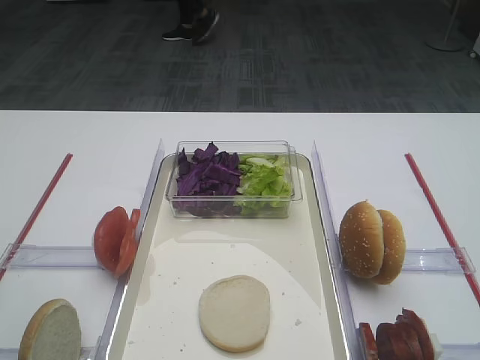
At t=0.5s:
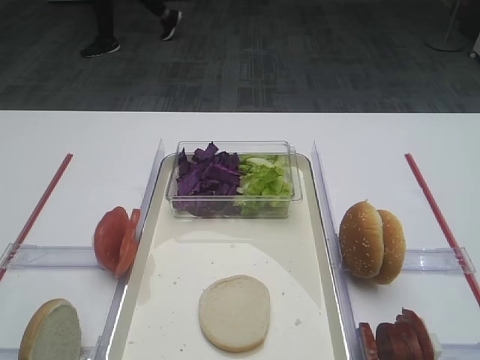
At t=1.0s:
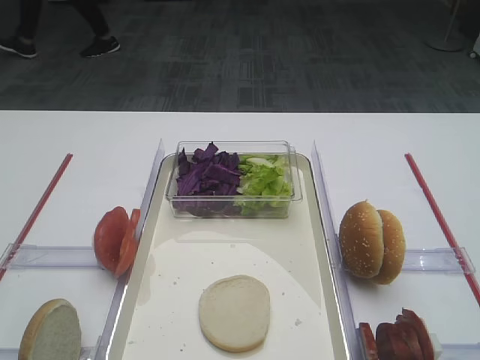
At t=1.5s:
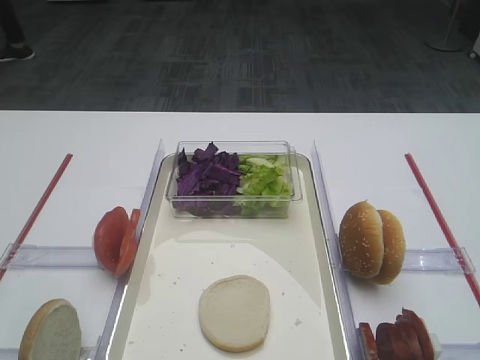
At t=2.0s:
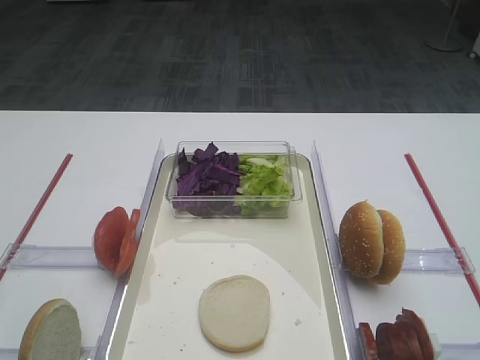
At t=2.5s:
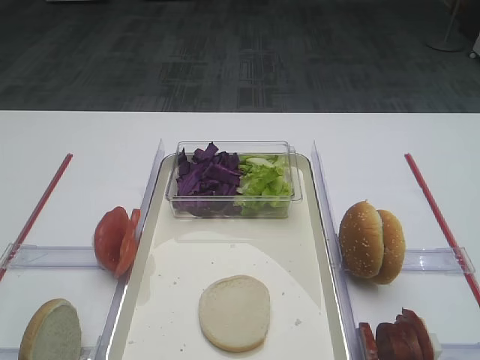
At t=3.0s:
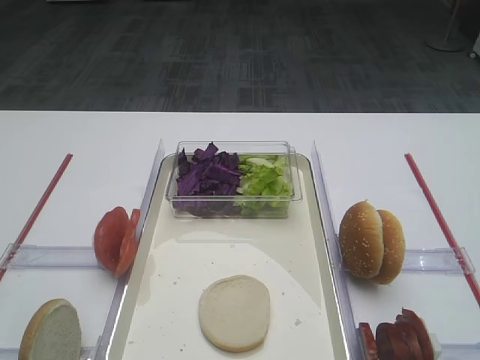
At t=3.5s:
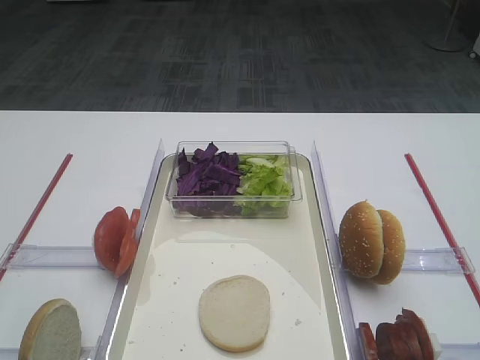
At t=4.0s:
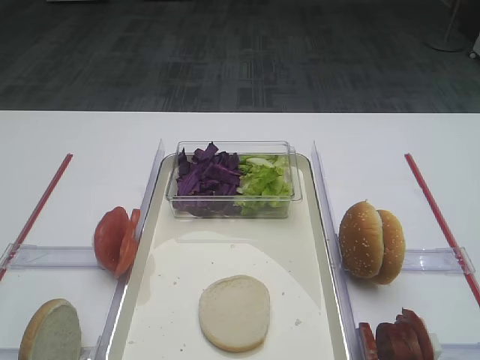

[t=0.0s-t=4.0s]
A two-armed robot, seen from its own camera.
t=2.0s to t=4.0s: Both grippers stay about where they are.

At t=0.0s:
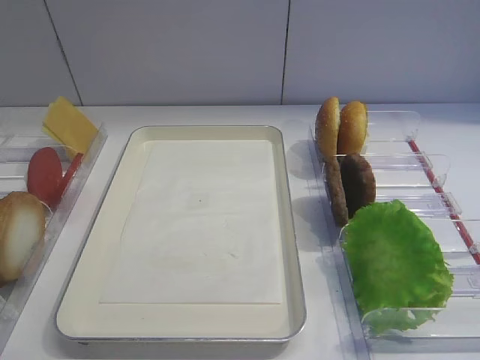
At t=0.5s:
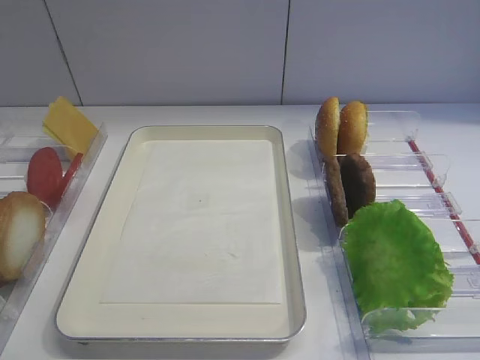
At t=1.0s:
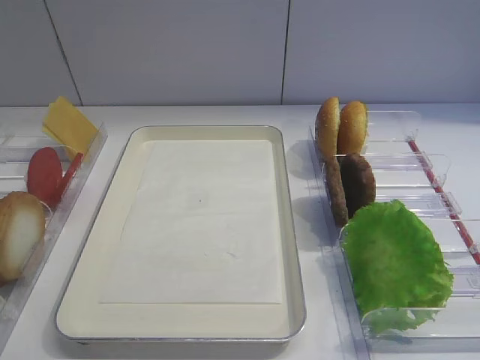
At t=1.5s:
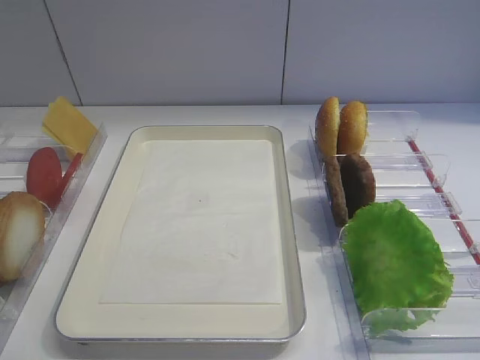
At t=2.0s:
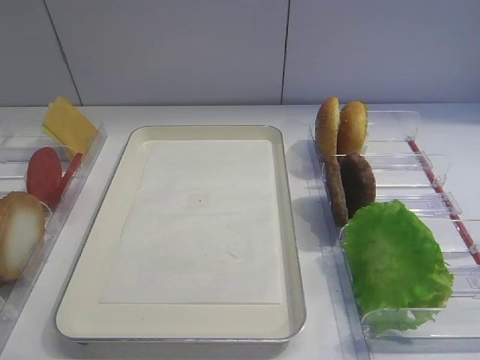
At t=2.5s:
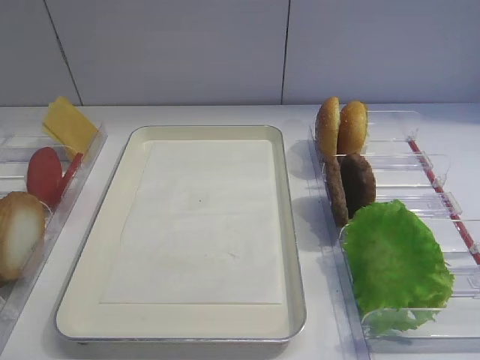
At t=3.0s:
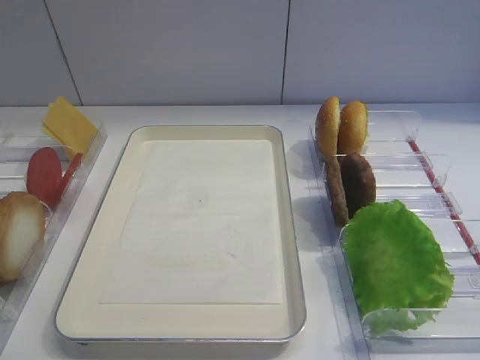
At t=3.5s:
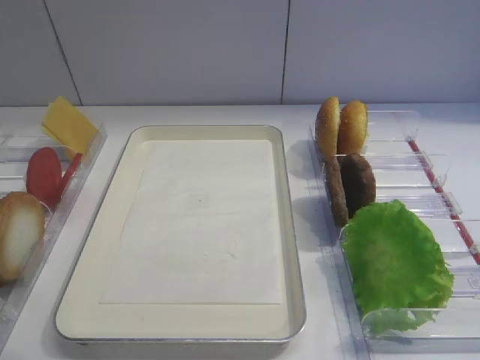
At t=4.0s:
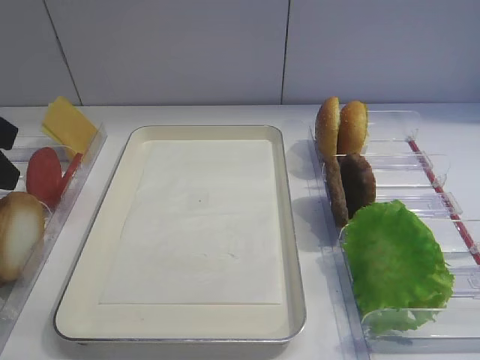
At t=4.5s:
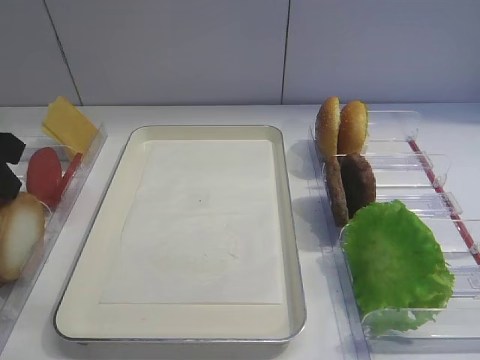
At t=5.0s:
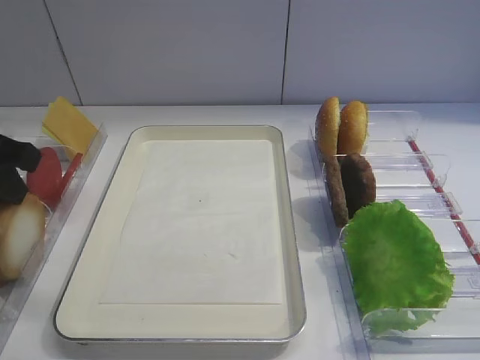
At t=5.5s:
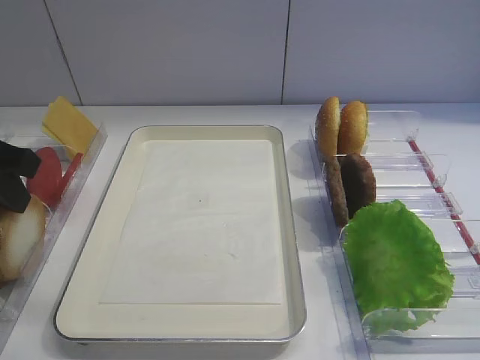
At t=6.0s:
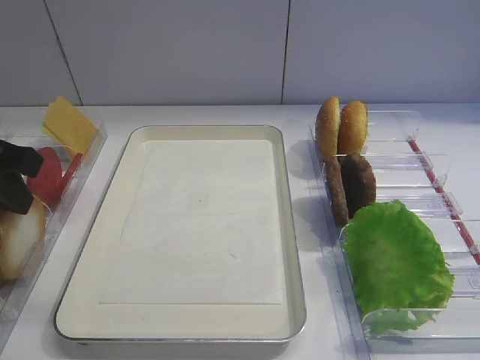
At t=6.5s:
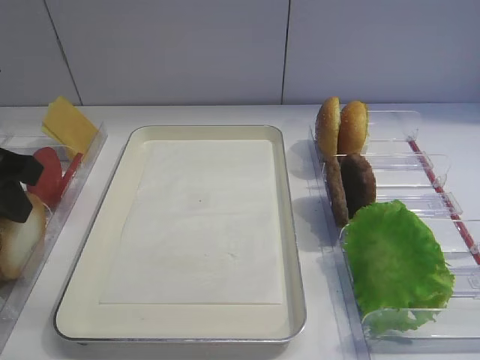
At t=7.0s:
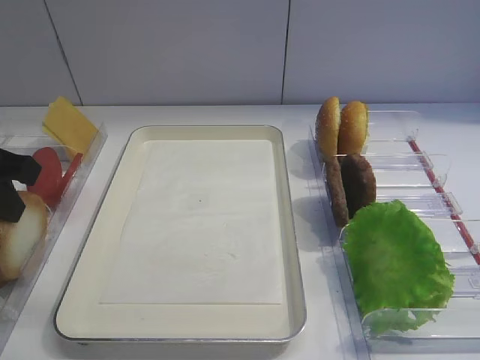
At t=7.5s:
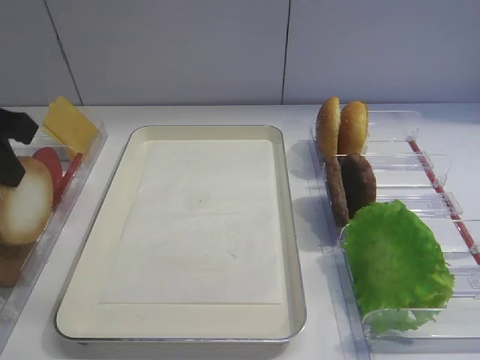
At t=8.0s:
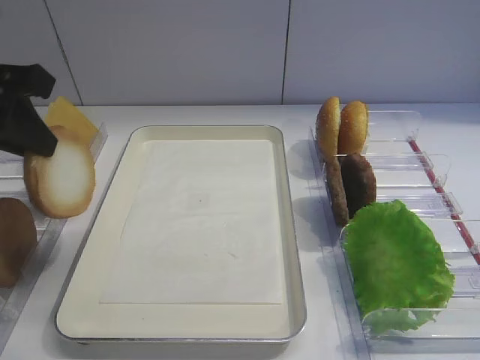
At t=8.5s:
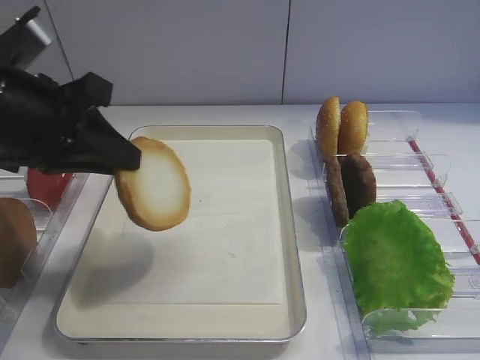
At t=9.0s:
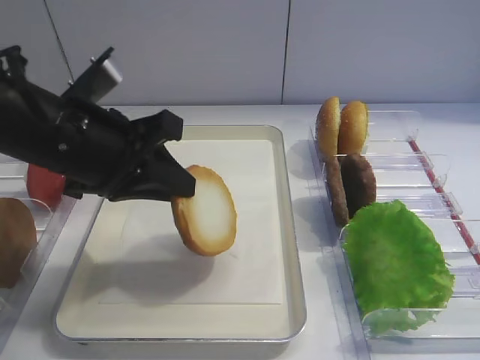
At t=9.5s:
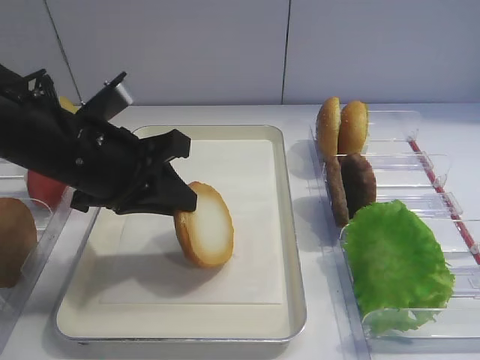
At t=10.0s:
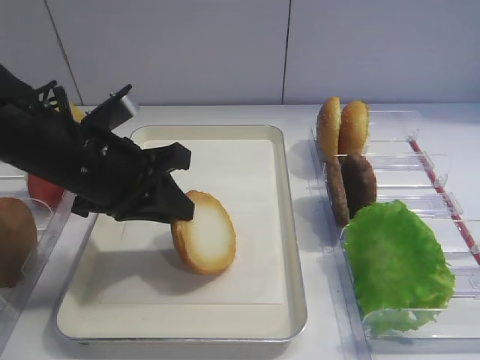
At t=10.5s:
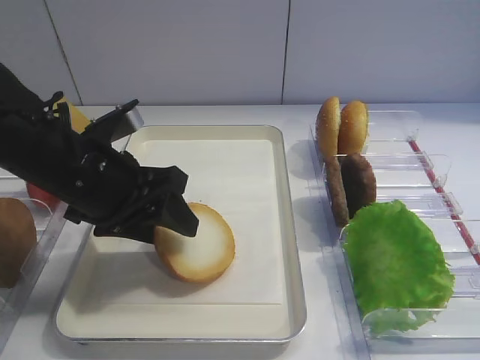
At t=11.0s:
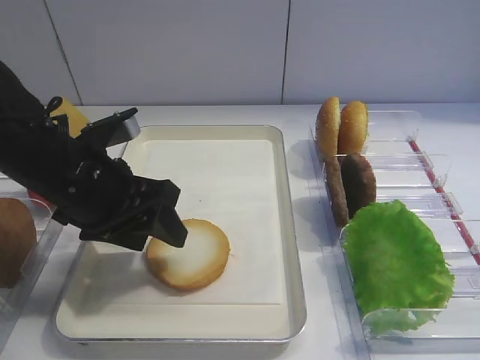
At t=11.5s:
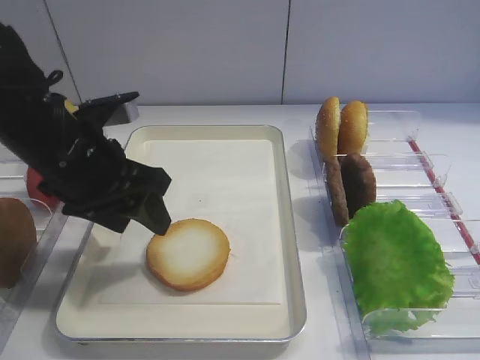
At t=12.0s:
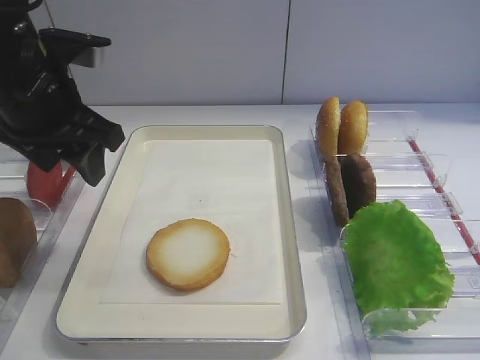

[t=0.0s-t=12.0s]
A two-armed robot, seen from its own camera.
Step, t=0.0s to t=7.5s: Pick up the bread slice with the left gripper.
Step, t=8.5s to t=11.0s: Place the bread slice on the tray with the left gripper.
t=2.0s to t=4.0s: The left gripper moves forward, some 25 cm, and closes its fingers.
t=4.0s to t=6.0s: The grippers move only a little.
t=6.0s to t=8.0s: The left gripper moves some 5 cm, and closes its fingers.
t=8.0s to t=10.0s: The left gripper shifts roughly 15 cm to the right and downward.
t=10.0s to t=12.0s: The left gripper shifts approximately 5 cm upward, and opens up.

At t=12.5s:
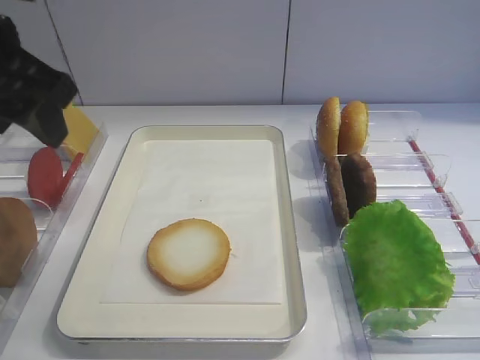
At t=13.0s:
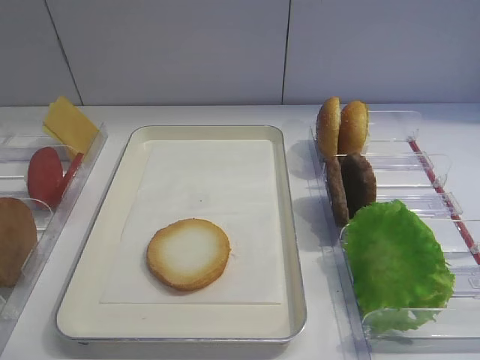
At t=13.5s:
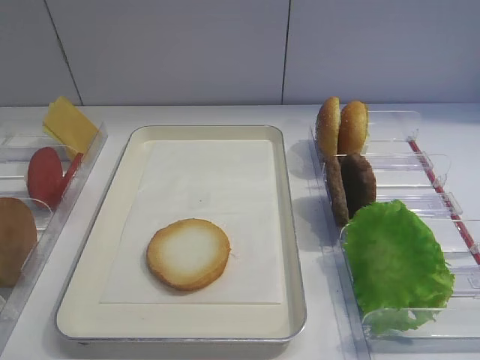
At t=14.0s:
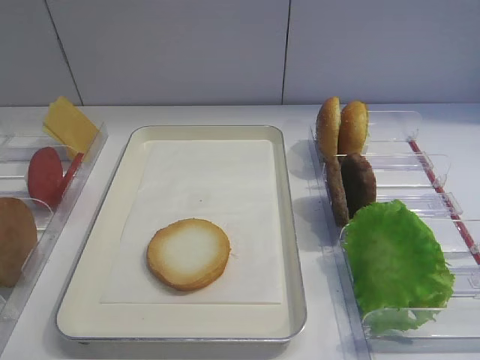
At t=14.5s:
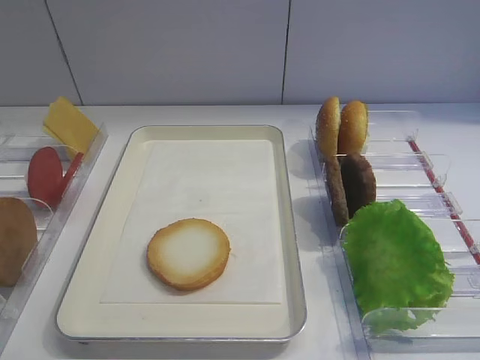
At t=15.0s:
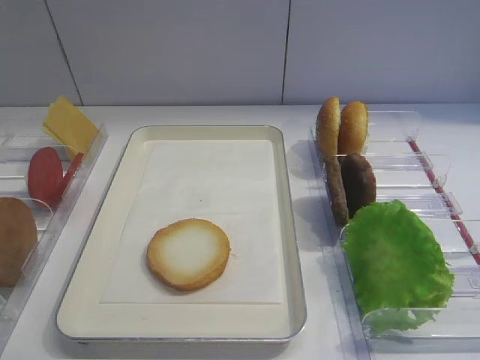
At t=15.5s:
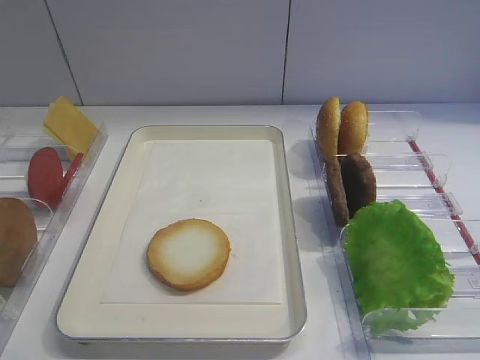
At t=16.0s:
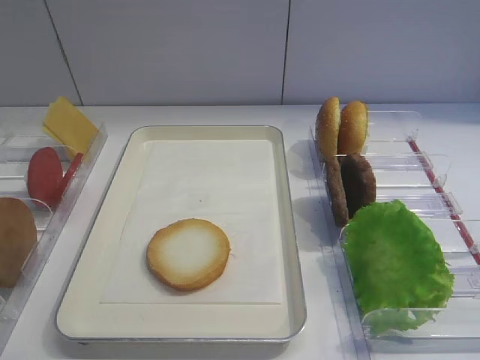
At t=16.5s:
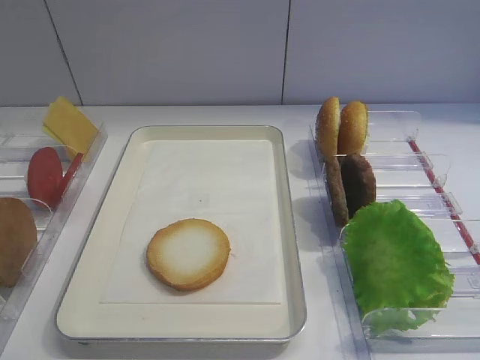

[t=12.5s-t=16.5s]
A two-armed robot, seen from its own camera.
t=12.5s to t=14.5s: The left gripper shifts approximately 25 cm backward.
